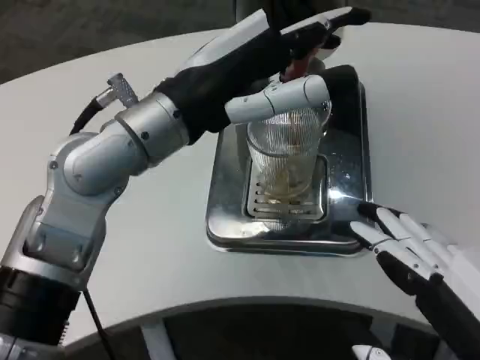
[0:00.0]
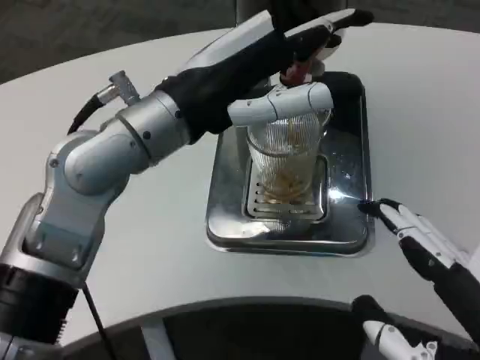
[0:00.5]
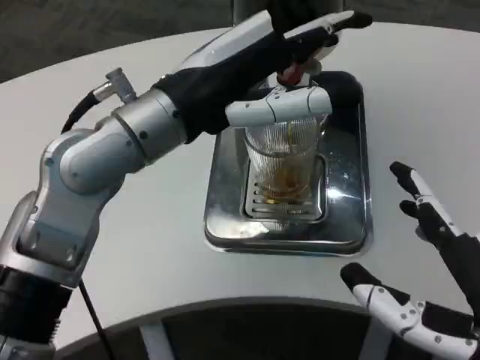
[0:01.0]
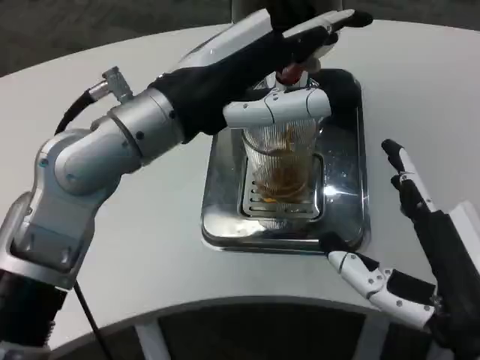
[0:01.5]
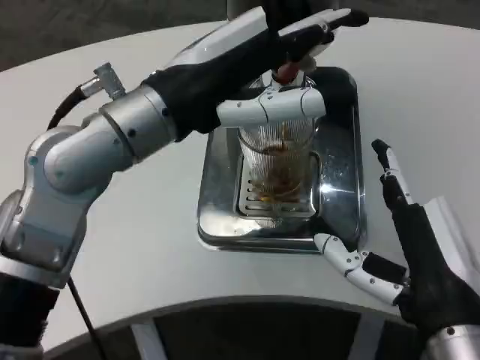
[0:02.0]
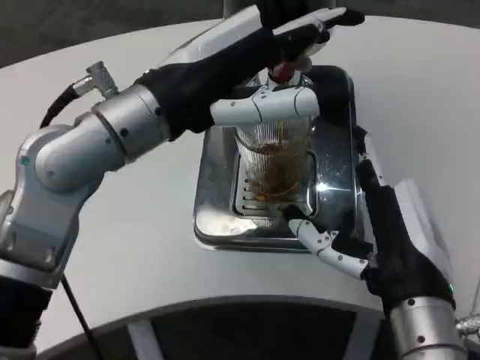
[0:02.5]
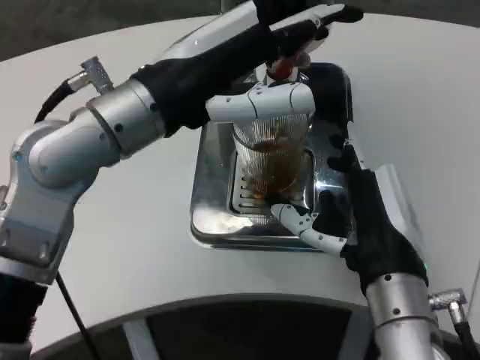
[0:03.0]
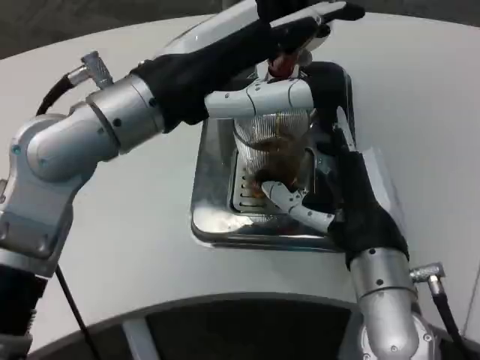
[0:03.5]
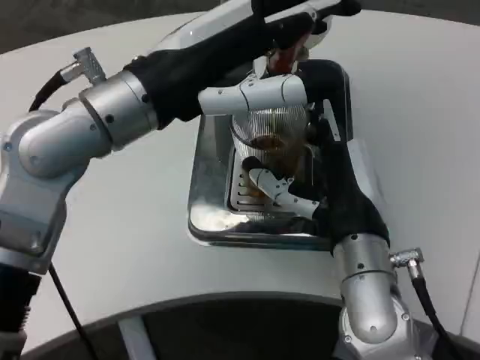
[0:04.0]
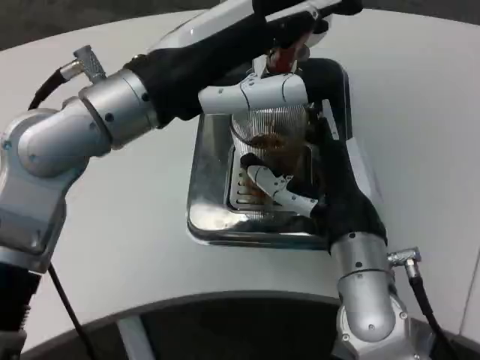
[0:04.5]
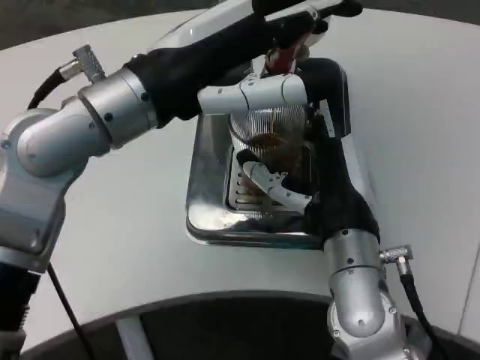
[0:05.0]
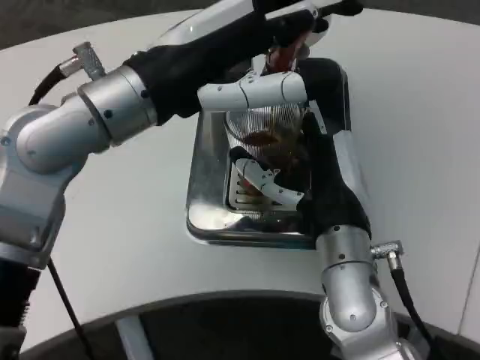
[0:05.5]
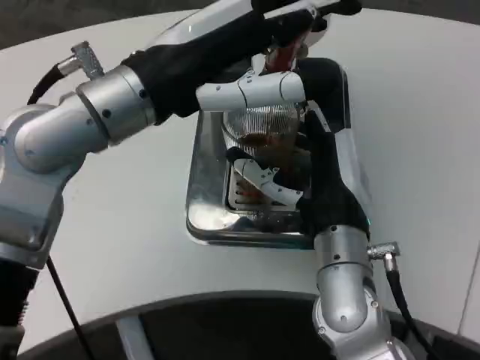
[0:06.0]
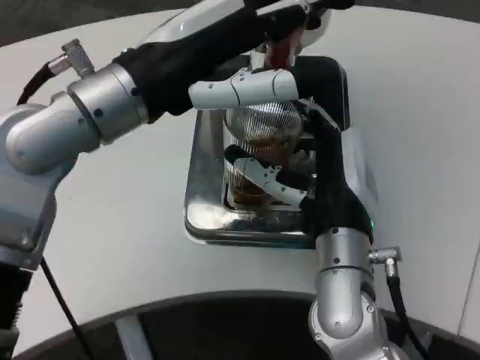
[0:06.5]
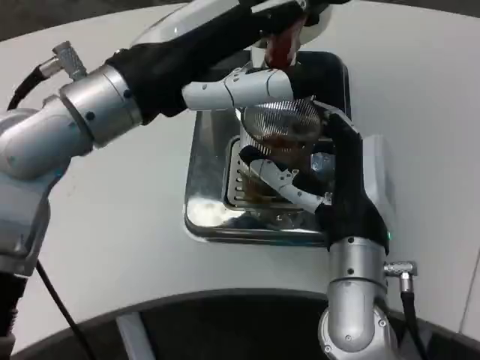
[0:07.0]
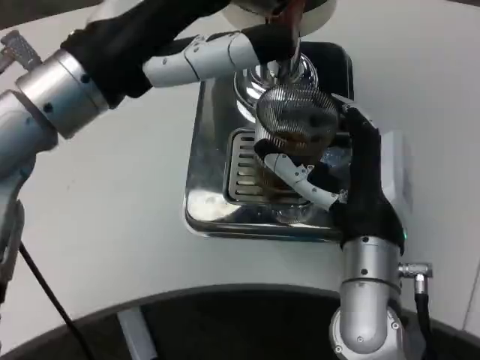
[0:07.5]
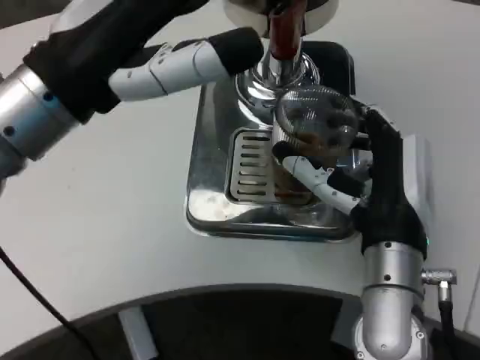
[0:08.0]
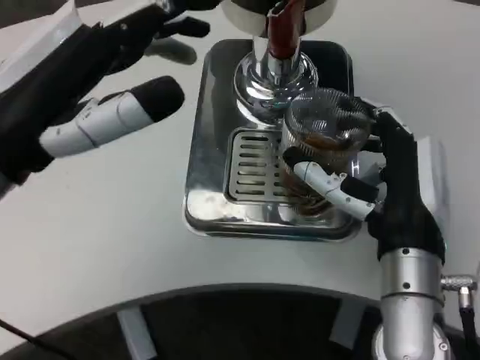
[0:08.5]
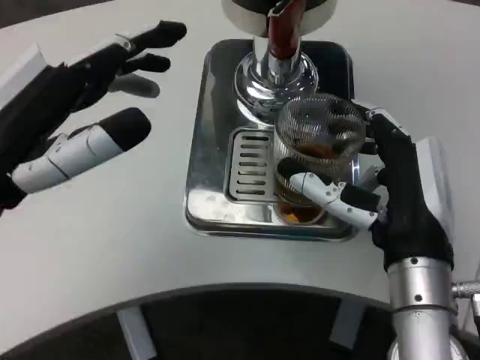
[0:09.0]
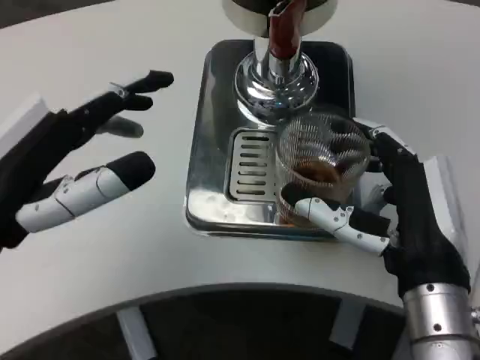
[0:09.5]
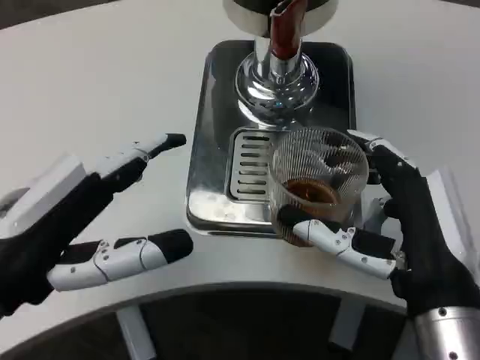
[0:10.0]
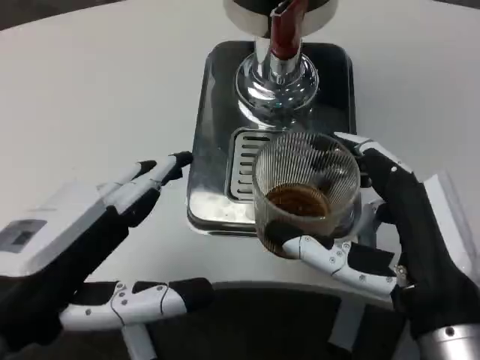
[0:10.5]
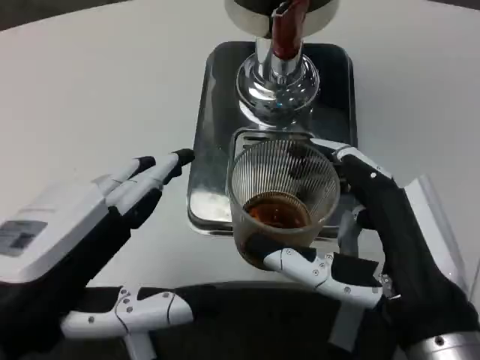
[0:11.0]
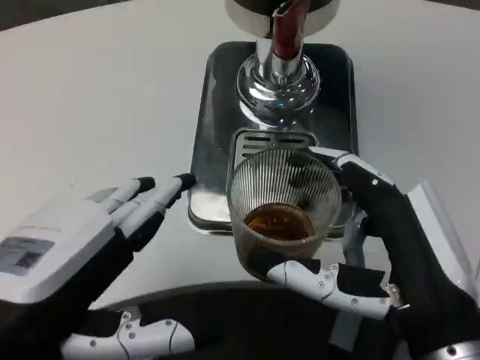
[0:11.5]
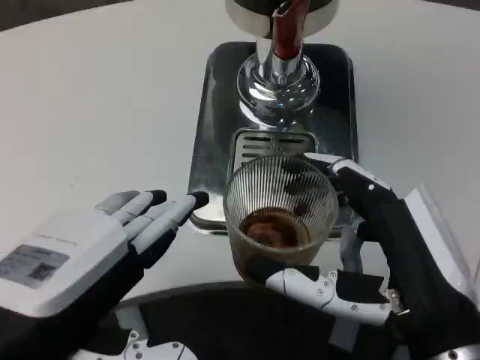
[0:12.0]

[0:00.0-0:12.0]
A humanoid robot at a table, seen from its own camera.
Task of the whole recording: Grasp the cup under the faucet to collect the drink, then remove the cup.
0:00.0 to 0:02.0: The right hand moves forward and to the left, about 10 cm.
0:02.0 to 0:04.0: The right hand is displaced forward and to the left by roughly 10 cm.
0:06.0 to 0:08.0: The left hand changes place by roughly 5 cm.
0:08.0 to 0:10.0: The right hand travels backward by some 5 cm; the left hand goes about 15 cm downward and backward.
0:10.0 to 0:12.0: The left hand changes place by approximately 5 cm.

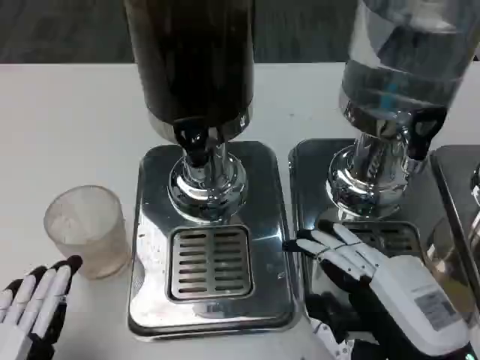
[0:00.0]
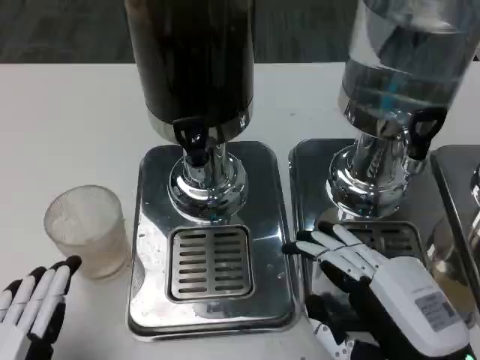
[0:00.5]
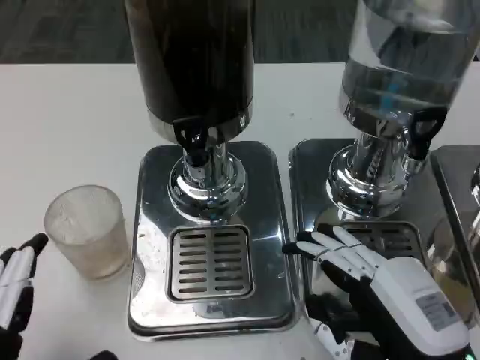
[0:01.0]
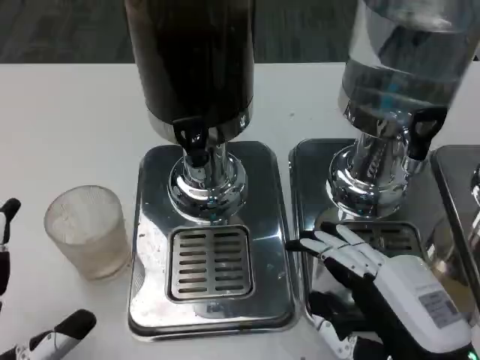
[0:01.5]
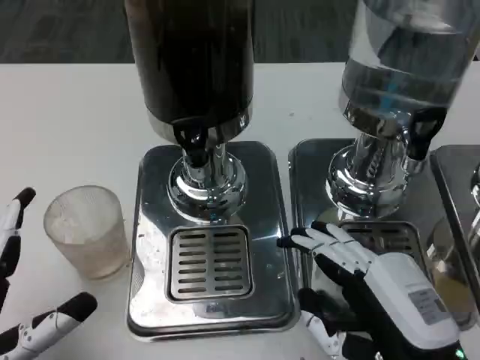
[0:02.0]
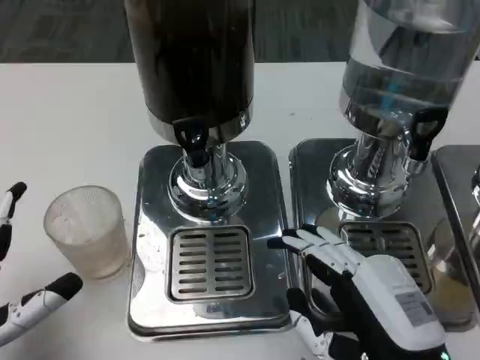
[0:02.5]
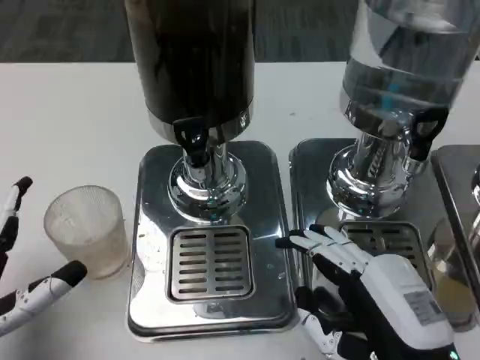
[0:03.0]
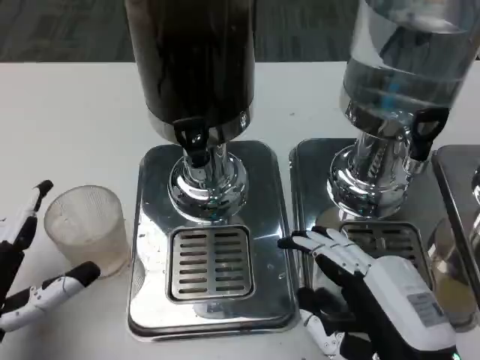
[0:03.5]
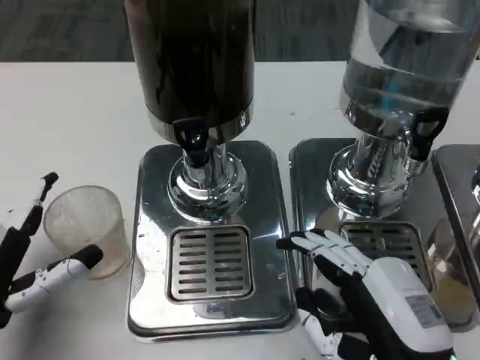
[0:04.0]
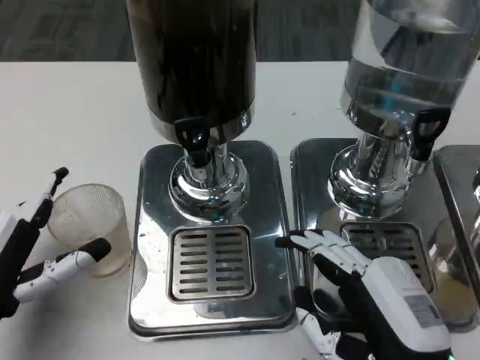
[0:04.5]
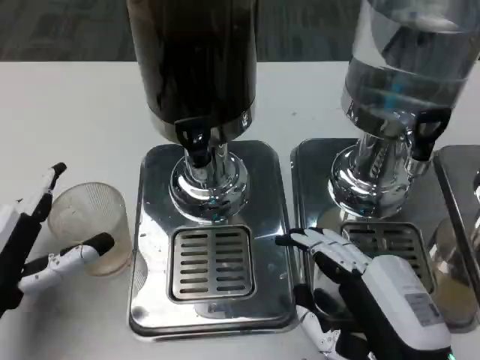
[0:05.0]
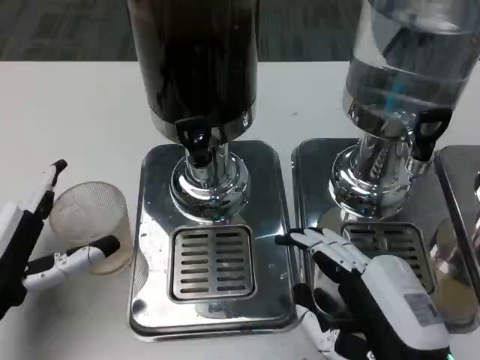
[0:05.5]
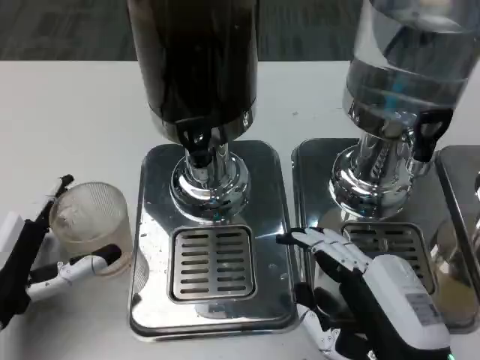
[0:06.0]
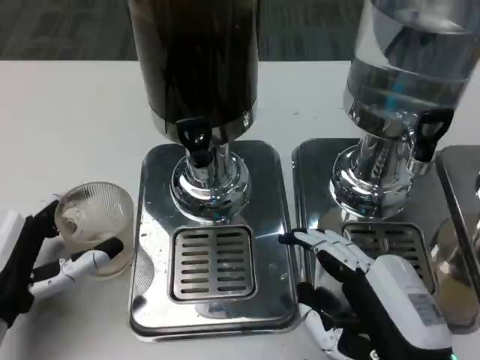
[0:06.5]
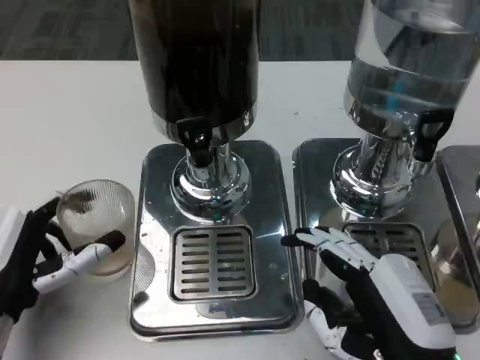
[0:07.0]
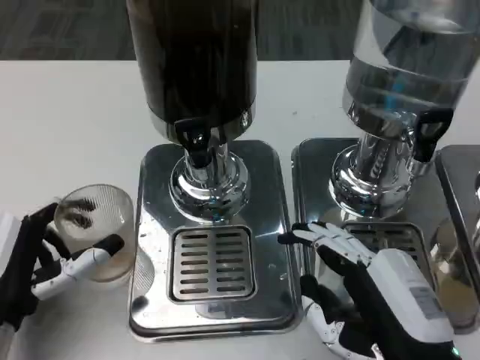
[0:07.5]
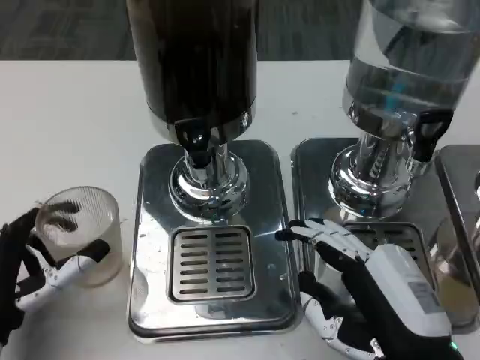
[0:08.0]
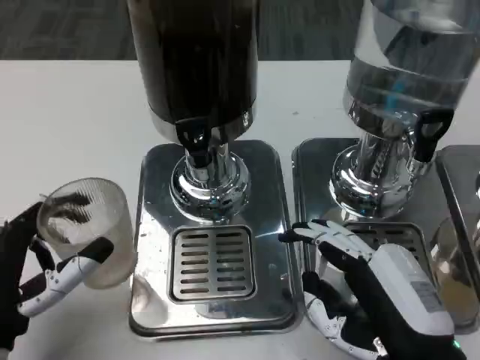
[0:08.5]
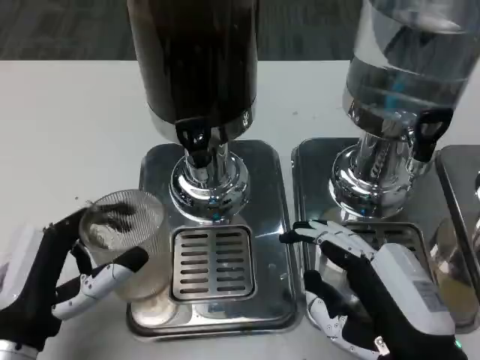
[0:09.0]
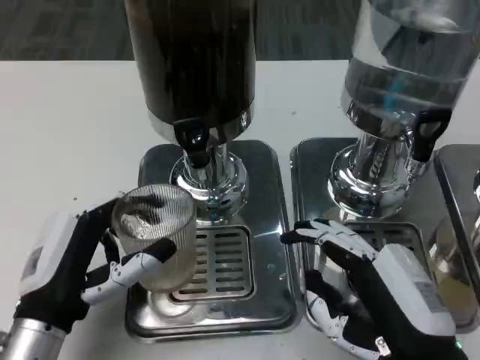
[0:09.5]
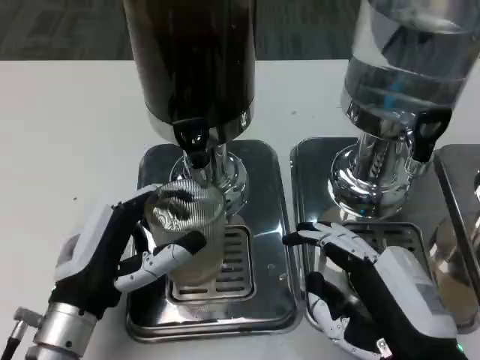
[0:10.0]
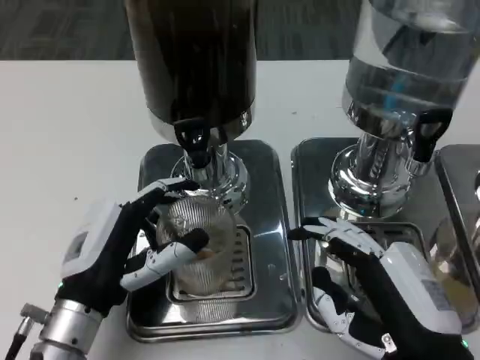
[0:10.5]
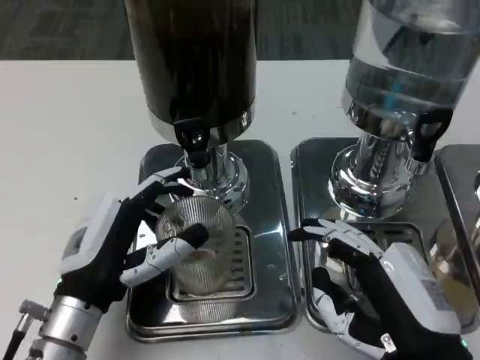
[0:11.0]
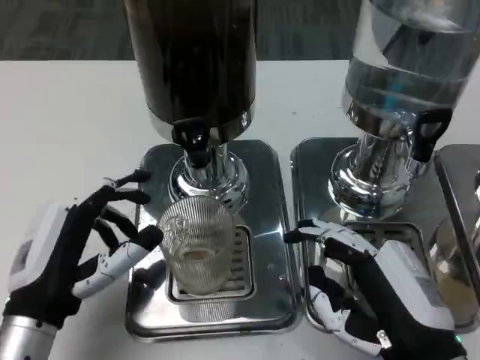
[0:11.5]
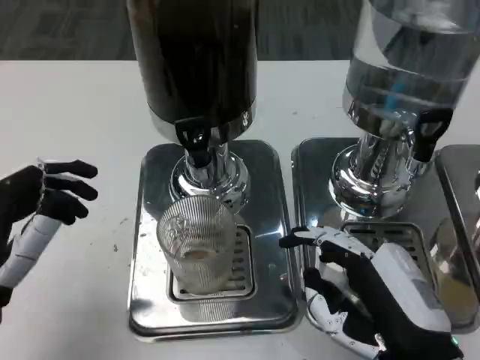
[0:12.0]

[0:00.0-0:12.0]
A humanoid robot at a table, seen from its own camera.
Task of the whole recording: Grasp the cup under the faucet to collect the drink, then remove the cup.
0:00.0 to 0:02.0: The left hand shifts by about 5 cm.
0:02.0 to 0:04.0: The left hand goes about 5 cm forward.
0:04.0 to 0:08.0: The hands make only small movements.
0:08.0 to 0:10.0: The left hand travels to the right by about 5 cm.
0:10.0 to 0:12.0: The left hand moves to the left and upward, about 10 cm.

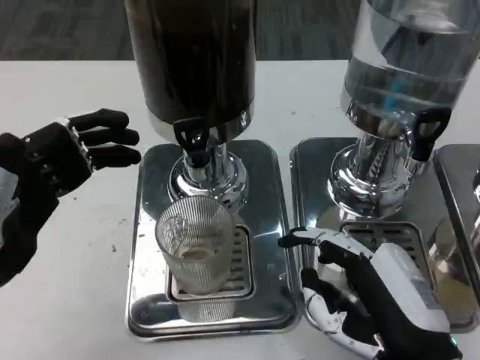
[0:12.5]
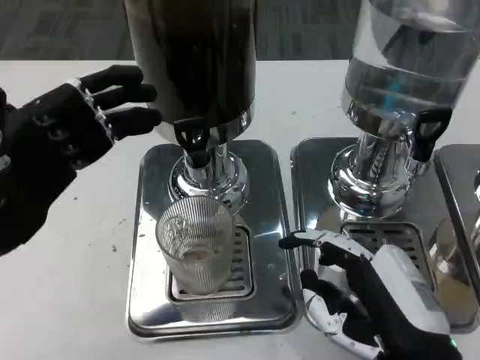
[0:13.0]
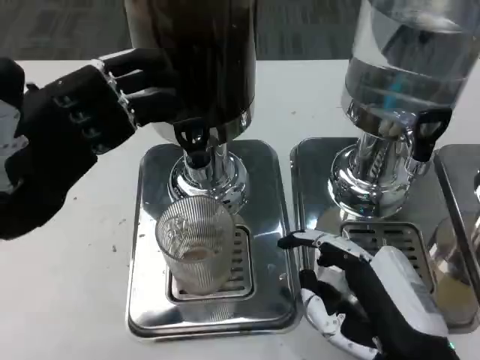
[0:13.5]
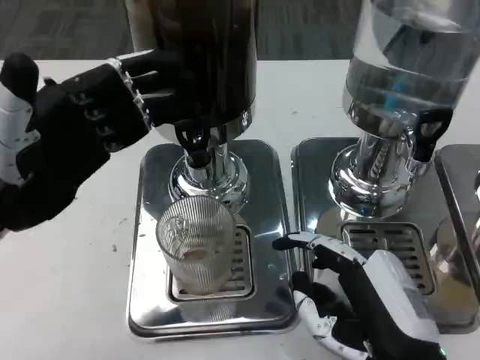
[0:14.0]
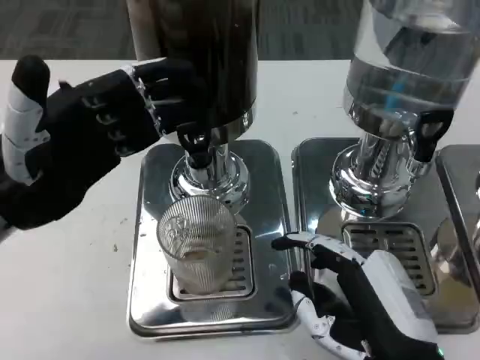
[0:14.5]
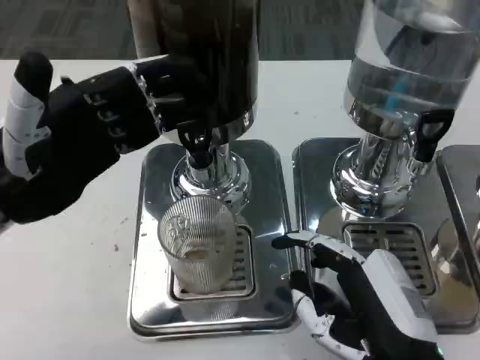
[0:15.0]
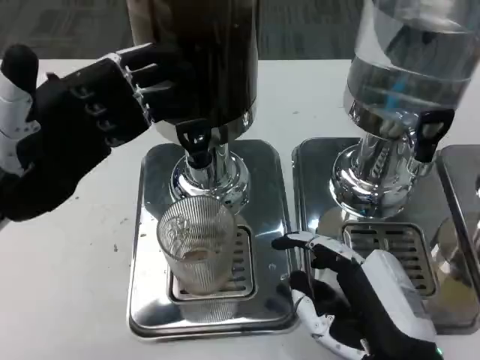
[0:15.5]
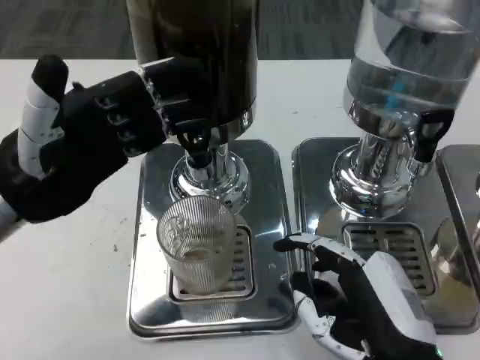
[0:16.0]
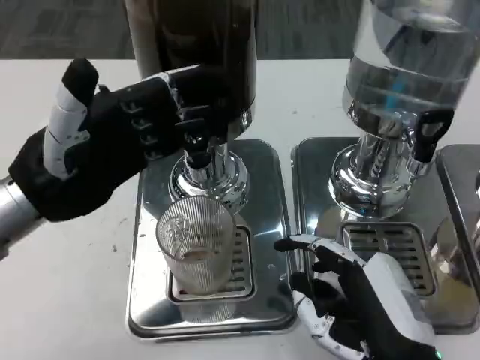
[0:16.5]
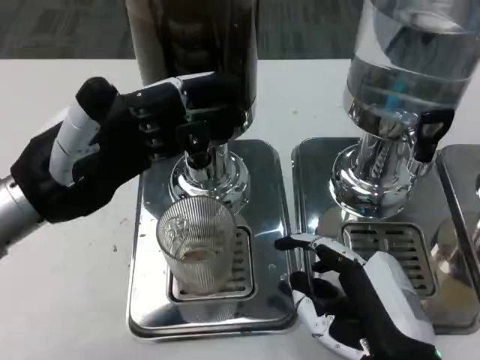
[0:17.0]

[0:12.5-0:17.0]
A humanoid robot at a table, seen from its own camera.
Task of the whole recording: Grasp the cup under the faucet to collect the drink, then remove the cup.
0:12.5 to 0:14.5: The left hand shifts some 5 cm forward.
0:14.5 to 0:17.0: The hands make only small movements.
